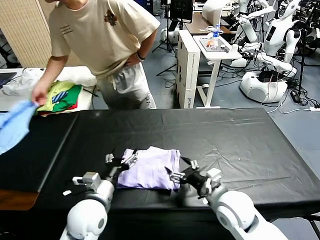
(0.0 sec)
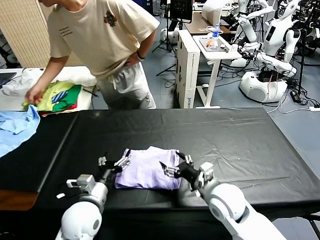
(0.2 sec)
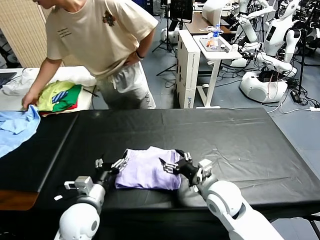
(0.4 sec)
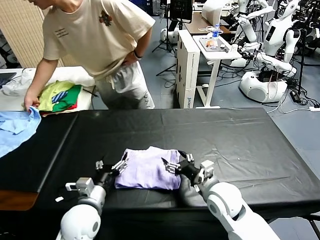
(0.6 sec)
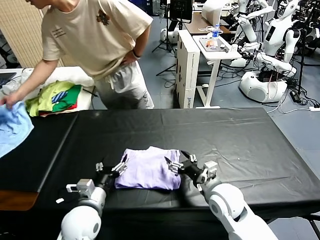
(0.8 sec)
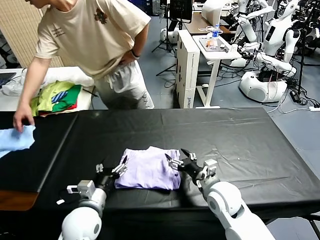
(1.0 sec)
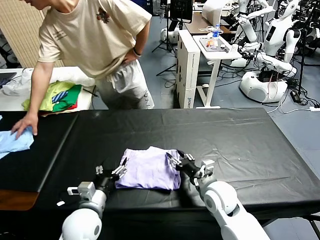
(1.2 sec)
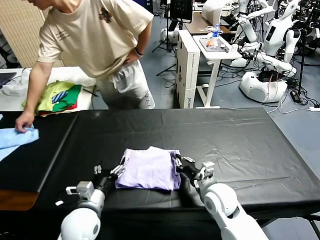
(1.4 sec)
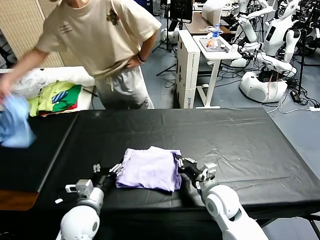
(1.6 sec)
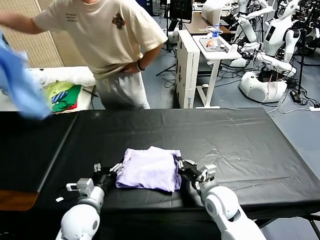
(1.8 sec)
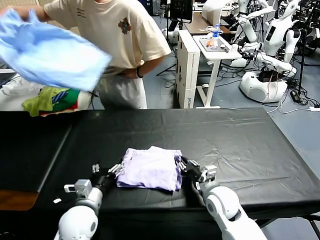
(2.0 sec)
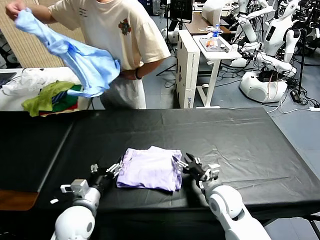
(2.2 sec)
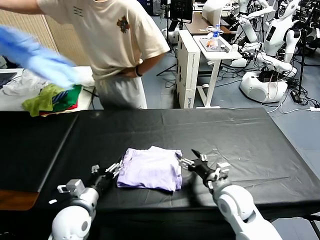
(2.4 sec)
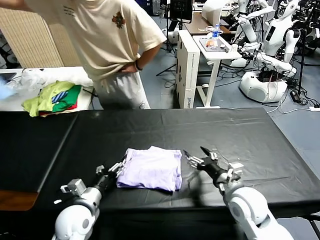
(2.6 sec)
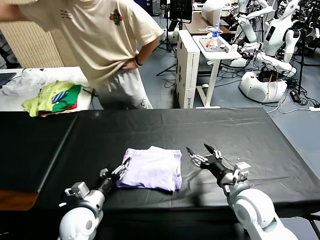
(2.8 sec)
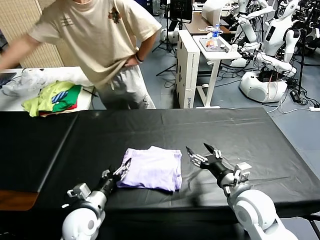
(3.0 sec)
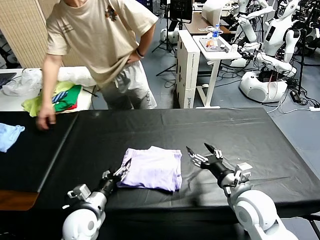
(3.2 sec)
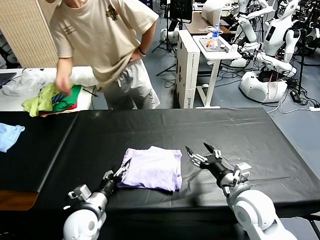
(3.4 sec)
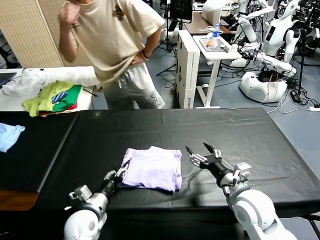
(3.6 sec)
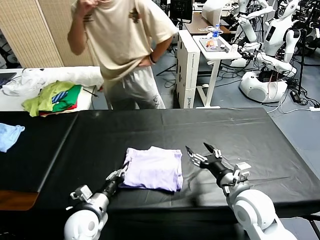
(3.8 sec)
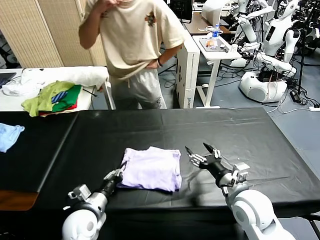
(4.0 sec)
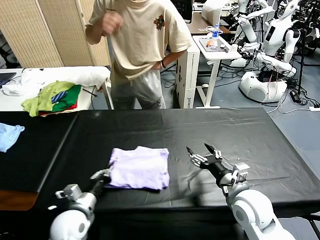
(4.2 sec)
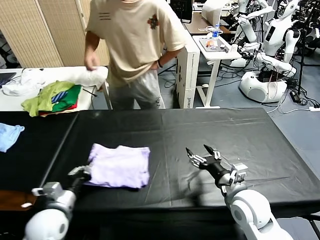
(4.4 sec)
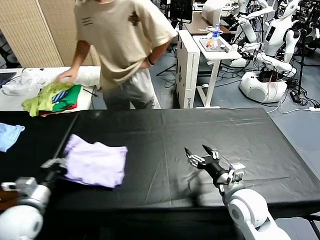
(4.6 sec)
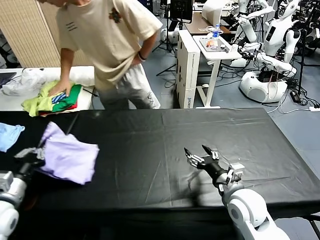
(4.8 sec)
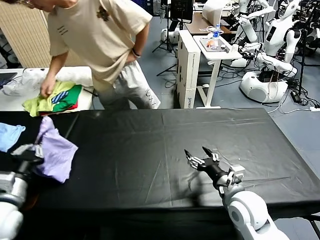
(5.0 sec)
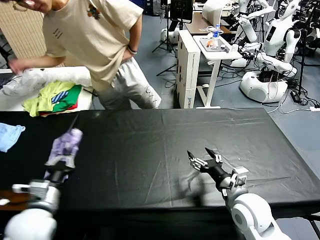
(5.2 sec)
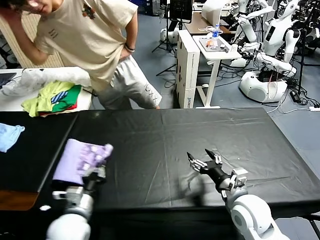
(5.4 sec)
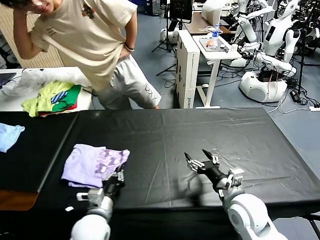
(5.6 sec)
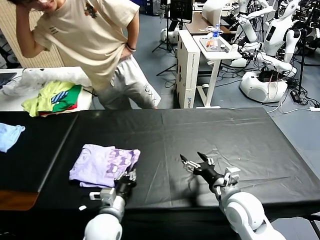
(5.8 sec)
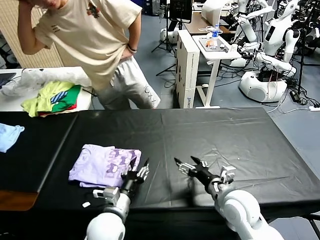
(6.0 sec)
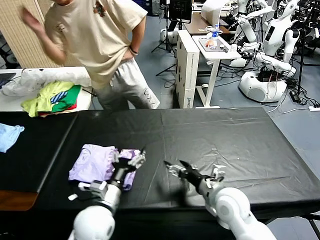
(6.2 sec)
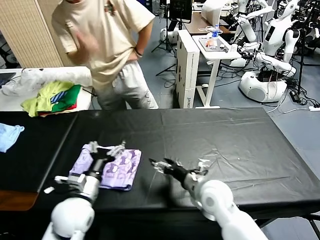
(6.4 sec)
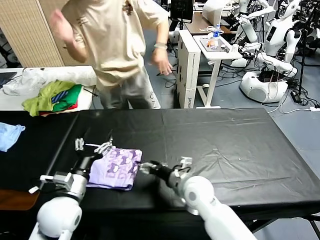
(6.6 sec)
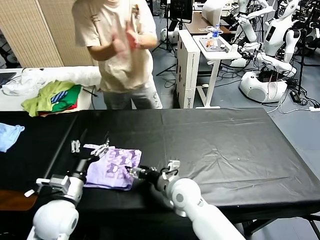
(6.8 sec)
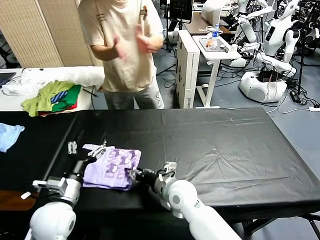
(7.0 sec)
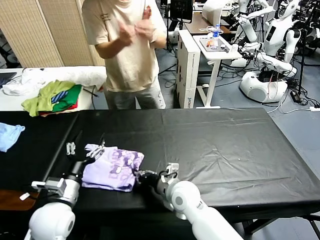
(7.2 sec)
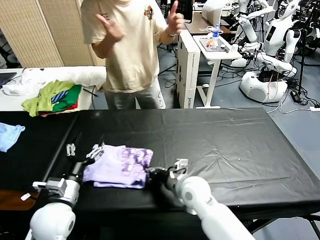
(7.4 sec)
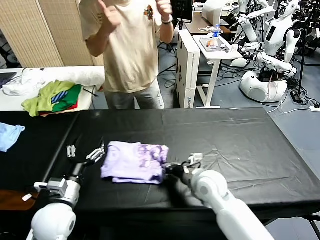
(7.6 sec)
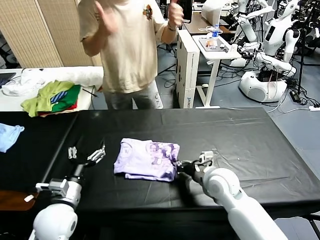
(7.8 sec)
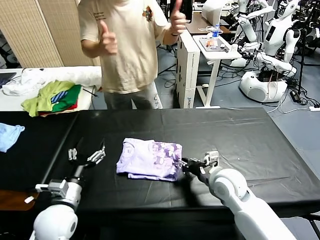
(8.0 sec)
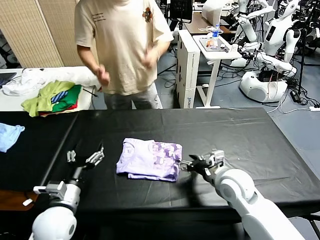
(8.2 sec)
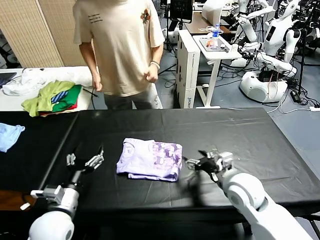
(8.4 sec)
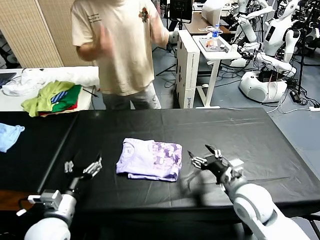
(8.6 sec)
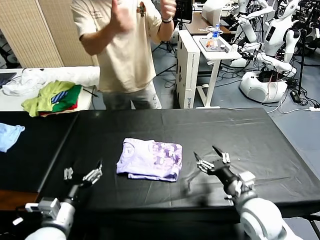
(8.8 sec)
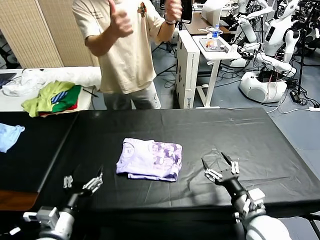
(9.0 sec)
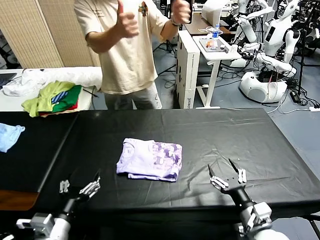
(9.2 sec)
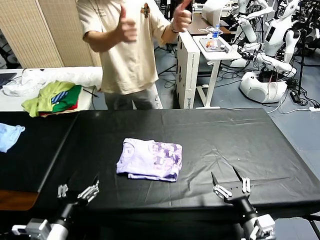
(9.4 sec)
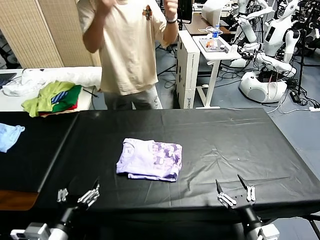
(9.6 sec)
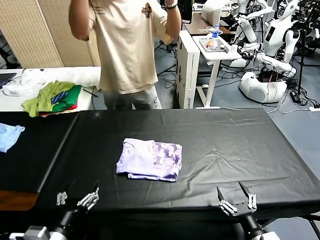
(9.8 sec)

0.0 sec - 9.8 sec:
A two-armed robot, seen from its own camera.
Task of the whole recording: fold and organize the clothes.
Step, 0.0 sec - 5.8 sec: Flip the folded clothes over with left gripper.
Step, 6.2 sec - 8.2 sec: Drag the clothes to the center of the table.
0.0 sec - 1.4 sec: The left gripper moves approximately 5 cm; the right gripper changes place by some 5 cm, and closes.
1.4 sec - 2.8 sec: The right gripper shifts roughly 10 cm to the right and upward, and opens.
2.8 sec - 4.2 sec: The left gripper closes its fingers.
4.2 sec - 5.6 sec: The left gripper travels to the left and back again, about 15 cm each way.
5.6 sec - 7.0 sec: The right gripper goes about 20 cm to the left and forward; the left gripper goes about 10 cm upward and to the left, and opens its fingers.
7.0 sec - 8.4 sec: The right gripper moves to the right and upward, some 20 cm, and closes and opens again.
8.4 sec - 9.8 sec: The right gripper travels backward by roughly 20 cm. Meanwhile the left gripper heads backward, covering roughly 10 cm.

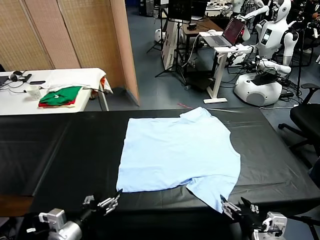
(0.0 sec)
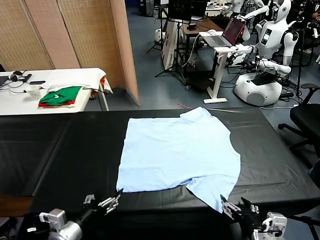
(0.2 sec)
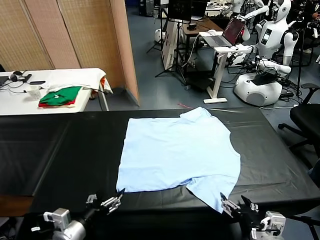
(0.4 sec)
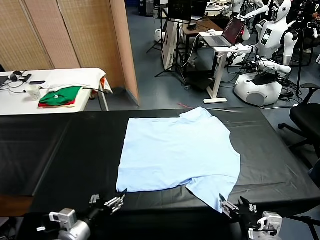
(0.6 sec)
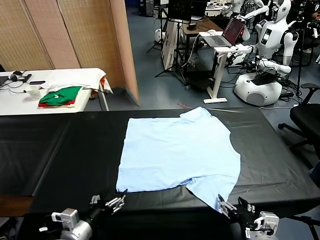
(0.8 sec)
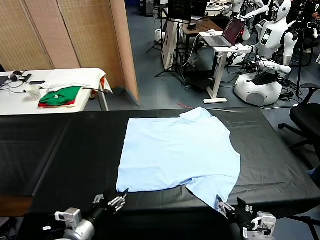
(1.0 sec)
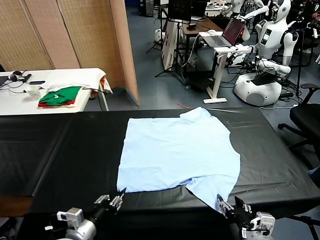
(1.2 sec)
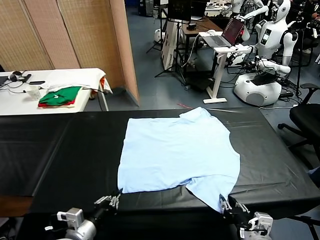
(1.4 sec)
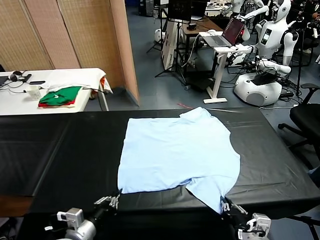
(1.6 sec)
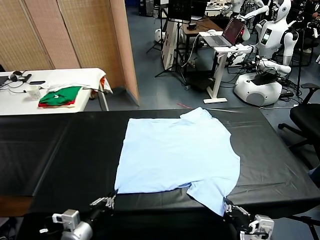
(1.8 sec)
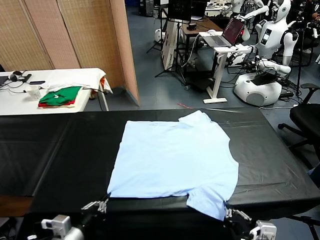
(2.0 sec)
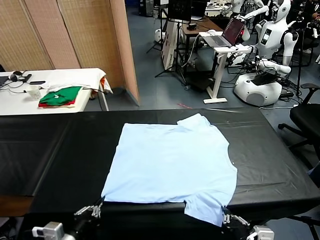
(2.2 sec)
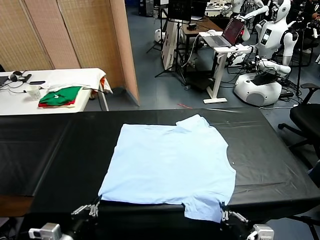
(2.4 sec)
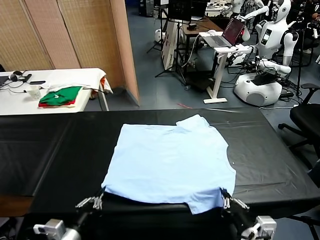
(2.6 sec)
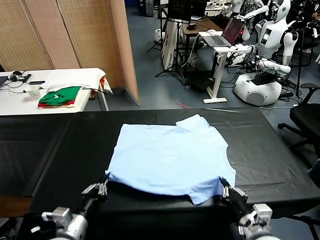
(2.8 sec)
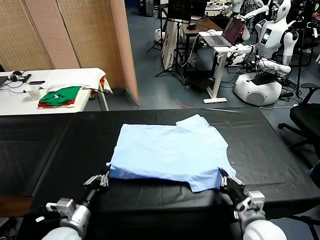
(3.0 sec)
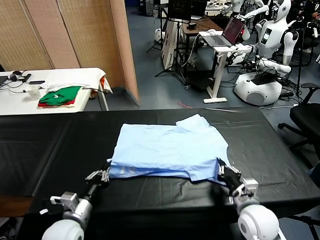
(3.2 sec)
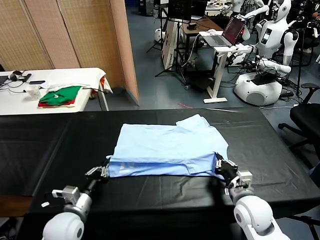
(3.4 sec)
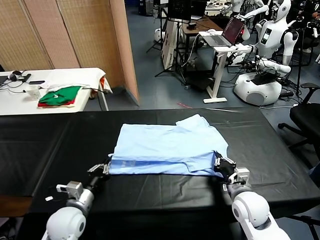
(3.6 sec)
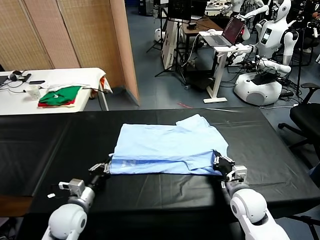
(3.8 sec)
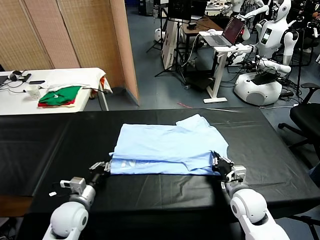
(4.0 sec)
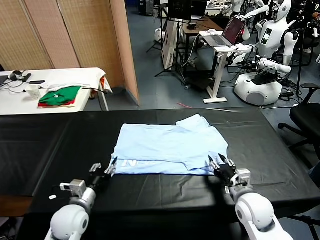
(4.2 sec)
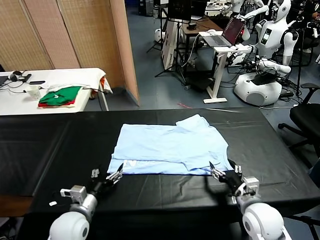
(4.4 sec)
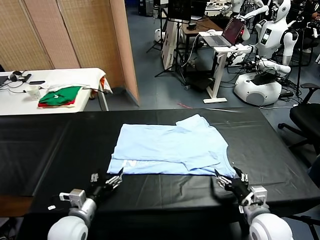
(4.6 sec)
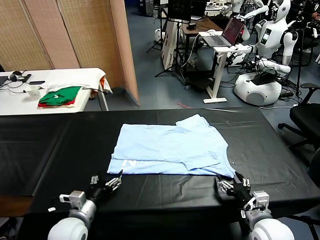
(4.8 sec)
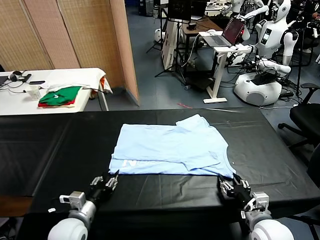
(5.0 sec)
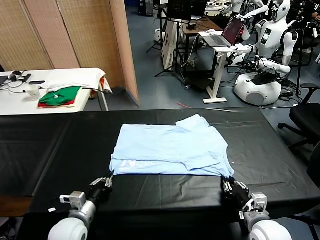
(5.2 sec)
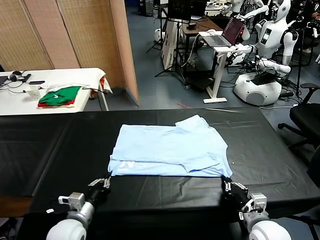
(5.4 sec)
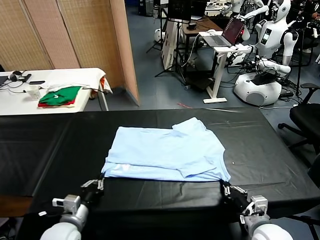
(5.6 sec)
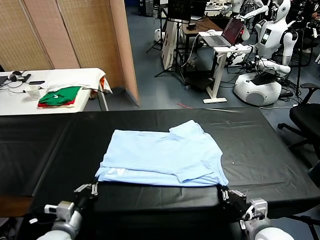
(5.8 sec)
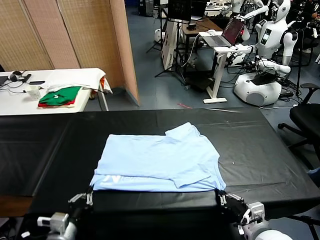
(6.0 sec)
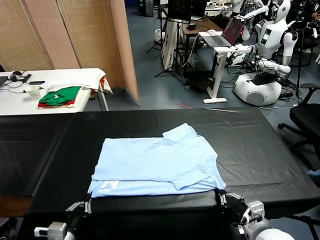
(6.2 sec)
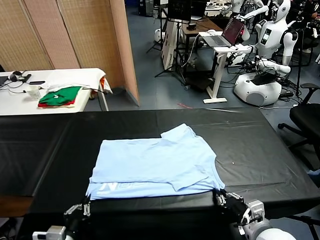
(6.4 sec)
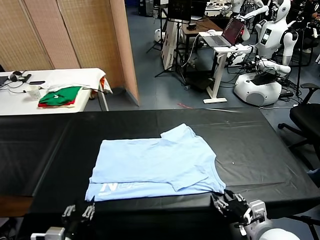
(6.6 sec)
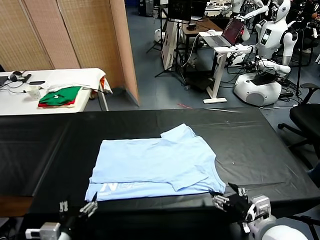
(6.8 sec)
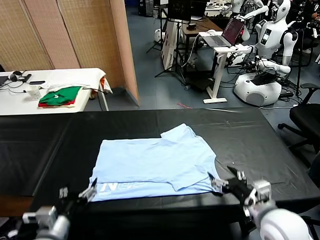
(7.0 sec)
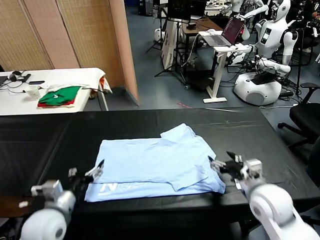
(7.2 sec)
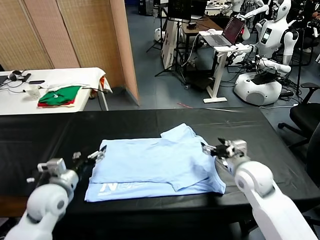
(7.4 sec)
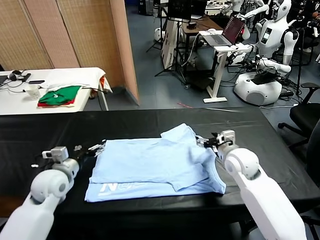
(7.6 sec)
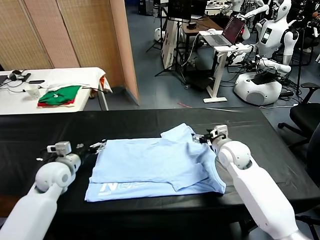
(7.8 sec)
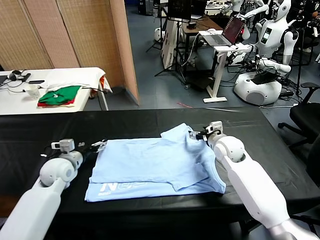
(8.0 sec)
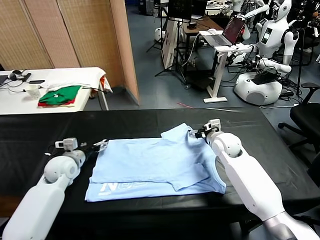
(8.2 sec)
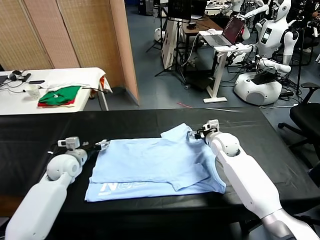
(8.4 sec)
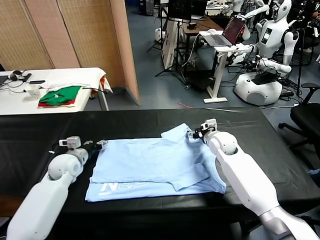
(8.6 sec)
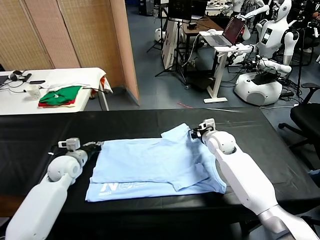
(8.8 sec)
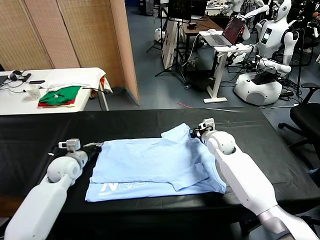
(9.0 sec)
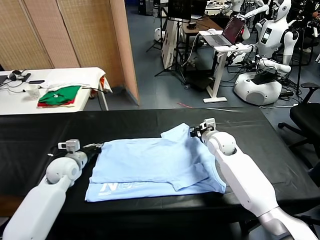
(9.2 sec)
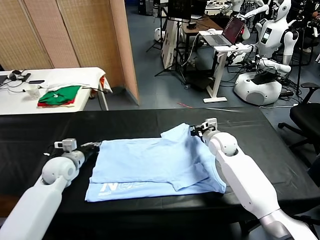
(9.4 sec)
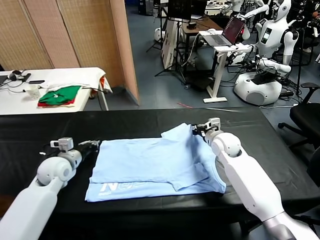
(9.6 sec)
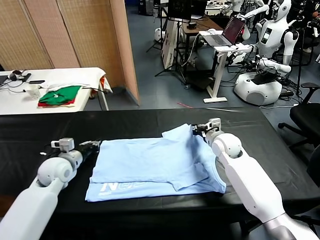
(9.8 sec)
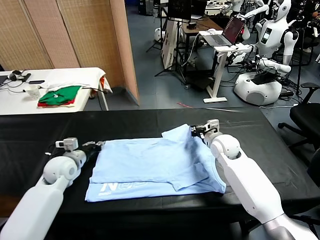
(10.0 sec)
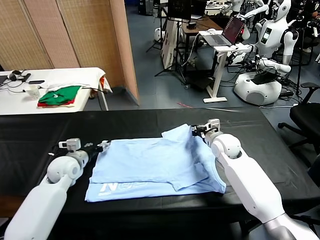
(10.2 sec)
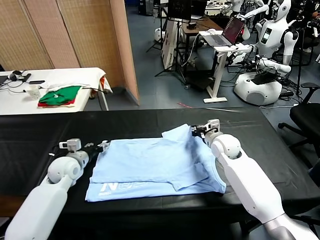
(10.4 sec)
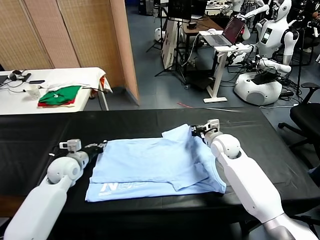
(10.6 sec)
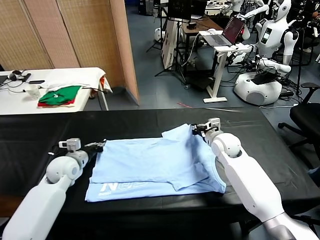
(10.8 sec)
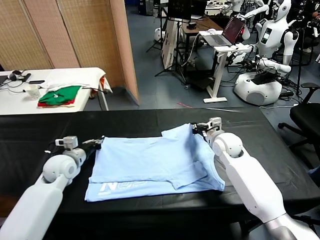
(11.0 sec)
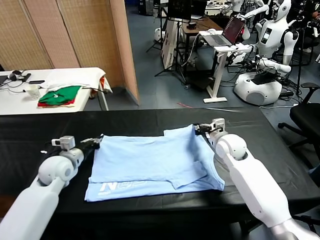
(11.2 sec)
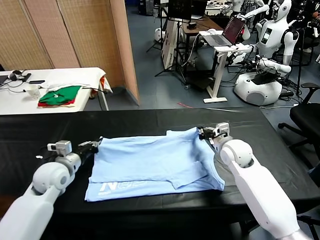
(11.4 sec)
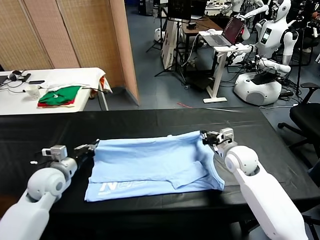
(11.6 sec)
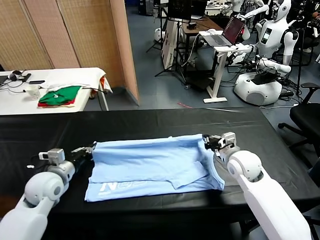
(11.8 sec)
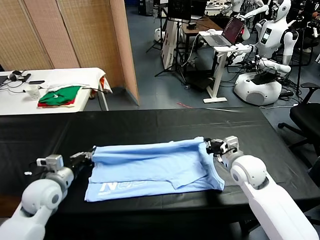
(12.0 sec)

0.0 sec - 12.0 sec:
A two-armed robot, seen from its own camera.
Task of the whole recording: fold and organize the clothes.
Step, 0.0 sec - 1.4 sec: use both grippers simultaneously to clamp the lower edge of the clothing fabric.
Step, 1.6 sec - 4.0 sec: use both grippers to drag the lower edge of the fabric forward and fold it over the upper edge.
Step, 4.4 sec - 6.6 sec: Drag the clothes downward with both gripper.
Step, 6.8 sec - 11.0 sec: use both grippers simultaneously to clamp the upper edge of the clothing fabric.
1.6 sec - 3.0 sec: The right gripper goes roughly 10 cm forward.
3.0 sec - 4.4 sec: The left gripper opens. The right gripper opens its fingers.
4.4 sec - 6.0 sec: The right gripper closes its fingers, while the left gripper travels backward by some 10 cm, and closes up.
6.0 sec - 7.6 sec: Both grippers travel together forward, about 25 cm. The left gripper opens its fingers, while the right gripper opens its fingers.
7.6 sec - 9.0 sec: Both grippers move forward, some 5 cm. The right gripper closes. The left gripper closes its fingers.
9.0 sec - 10.4 sec: The left gripper opens its fingers.
10.4 sec - 12.0 sec: Both grippers move backward, some 10 cm. The left gripper closes its fingers.
